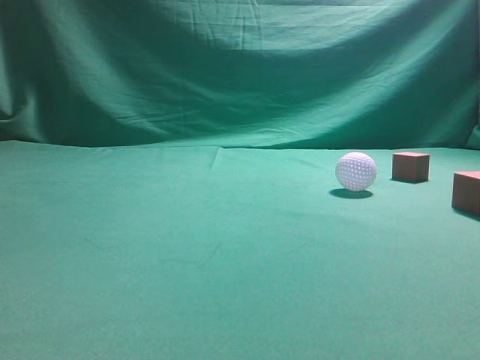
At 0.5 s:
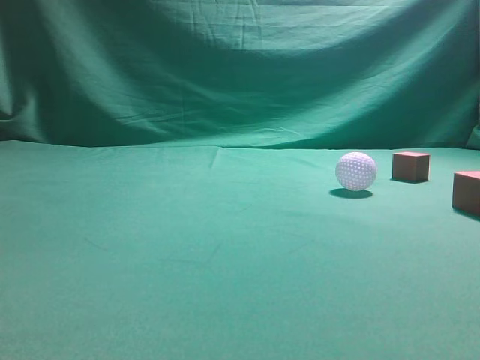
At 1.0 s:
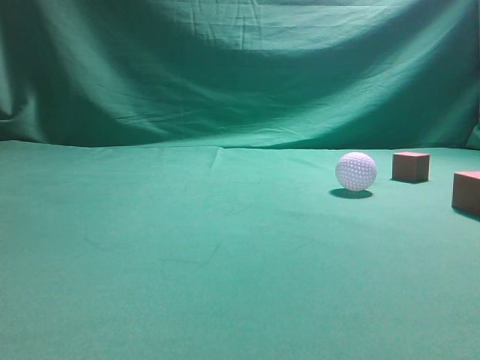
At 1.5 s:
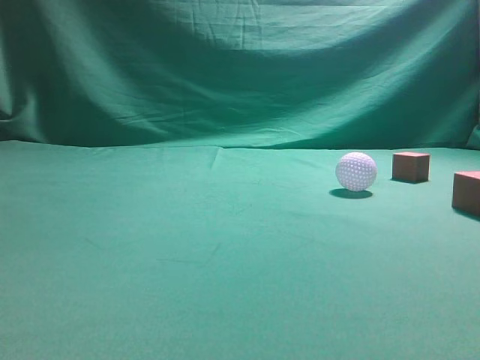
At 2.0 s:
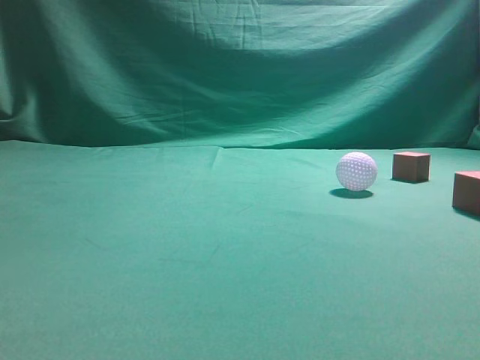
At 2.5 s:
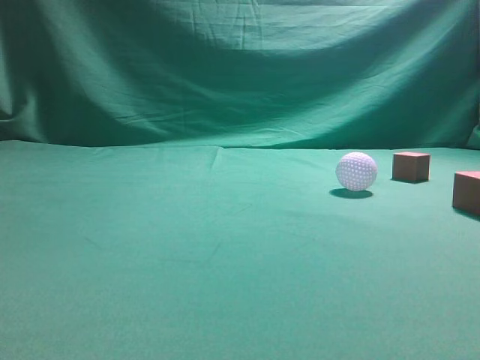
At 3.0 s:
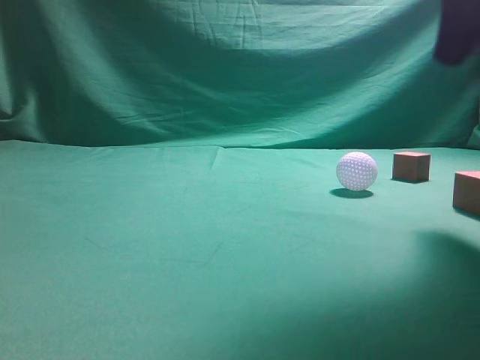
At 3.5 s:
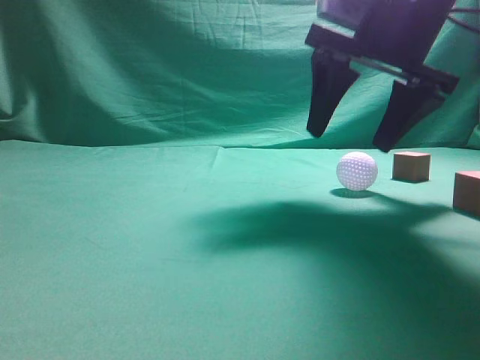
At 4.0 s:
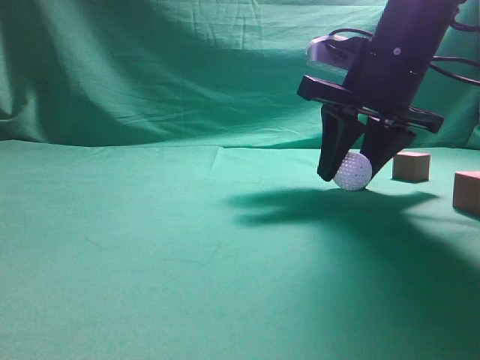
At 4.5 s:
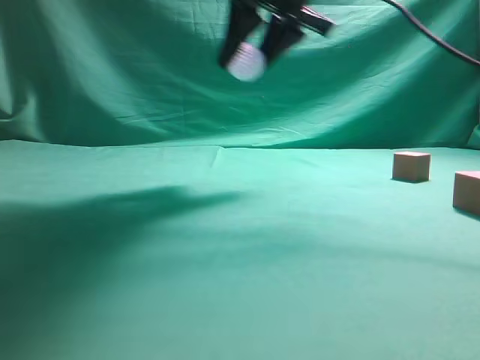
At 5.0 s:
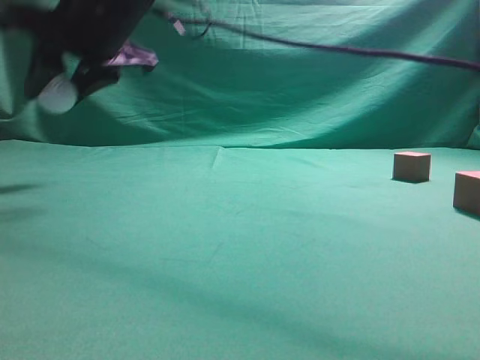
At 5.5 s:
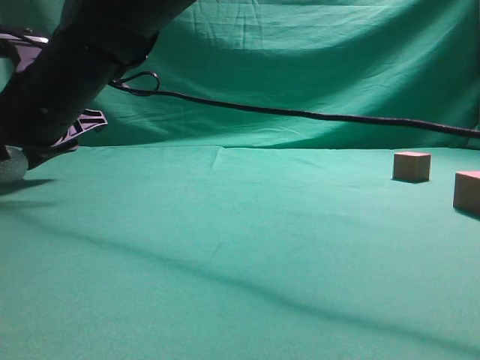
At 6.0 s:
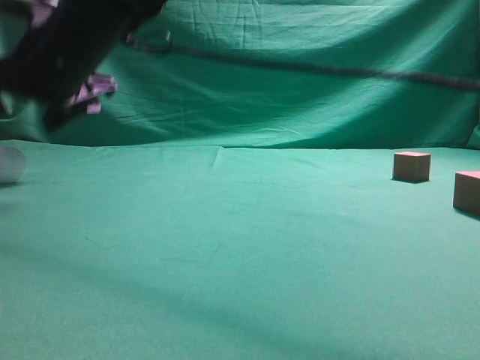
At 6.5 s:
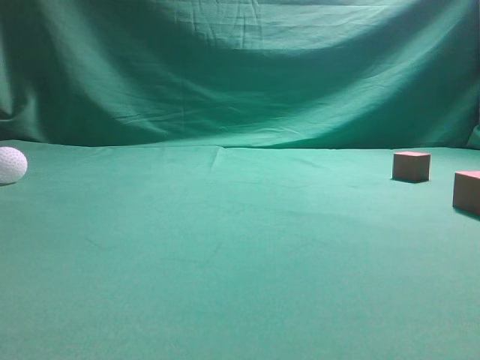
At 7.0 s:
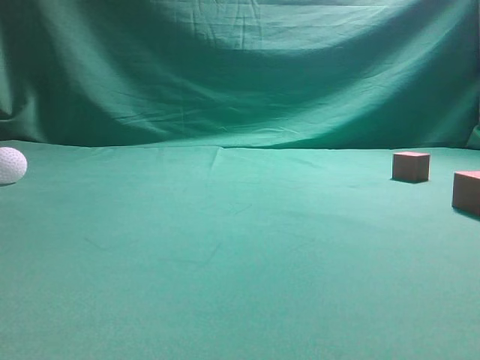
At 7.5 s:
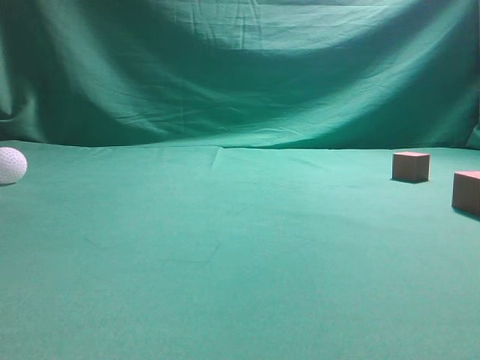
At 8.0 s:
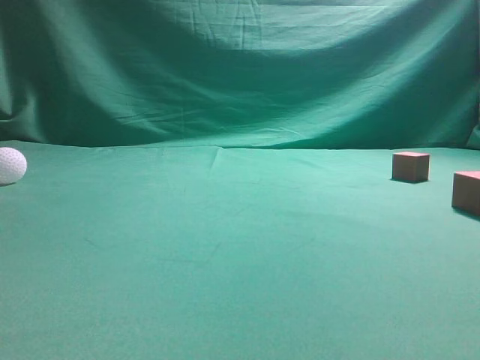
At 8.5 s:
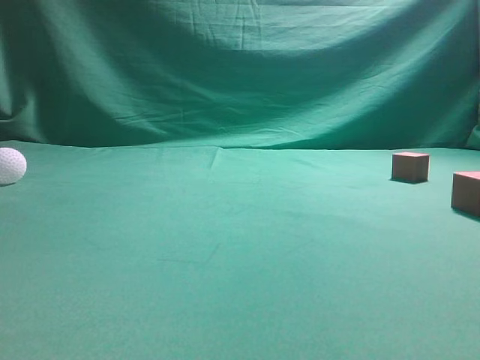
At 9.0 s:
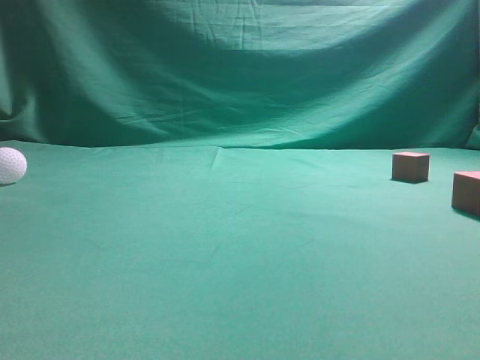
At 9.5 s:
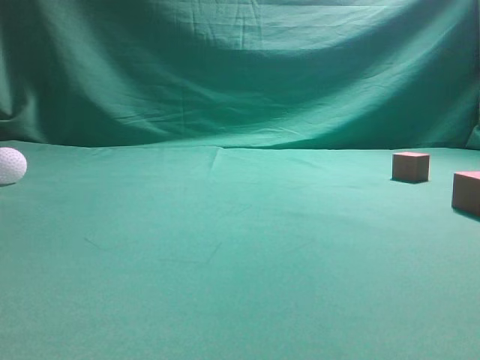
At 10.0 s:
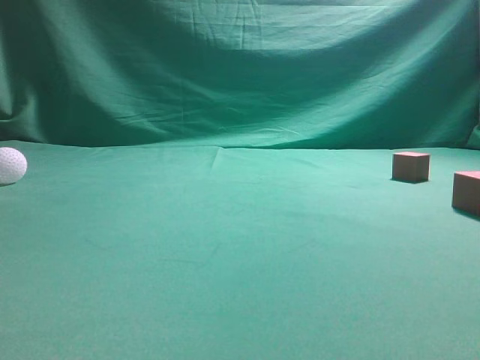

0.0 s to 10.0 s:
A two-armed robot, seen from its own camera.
Step, 0.0 to 3.5 s: Grasp the spherical object on the right side.
2.0 to 4.0 s: The right gripper moves forward and to the left, some 35 cm, and opens its fingers.
4.0 to 6.0 s: The right gripper travels to the left by roughly 30 cm, and opens up.
6.0 to 8.0 s: The right gripper goes roughly 50 cm to the right, backward and upward, and closes.

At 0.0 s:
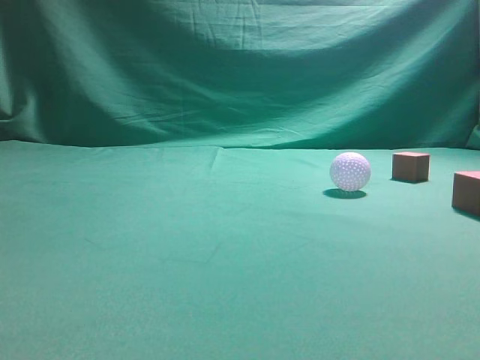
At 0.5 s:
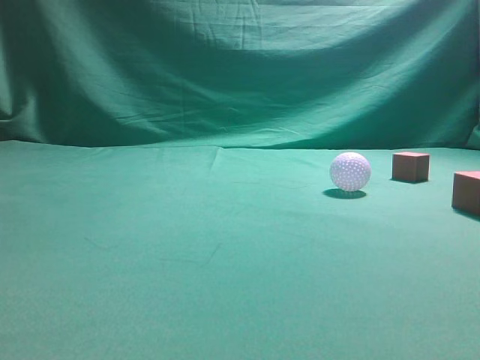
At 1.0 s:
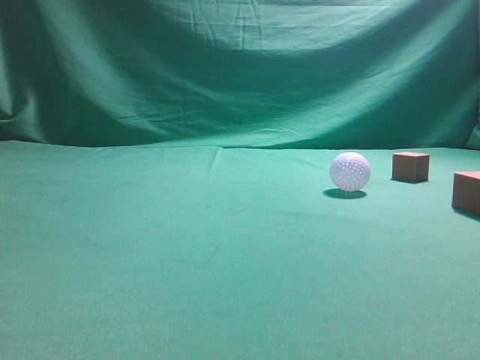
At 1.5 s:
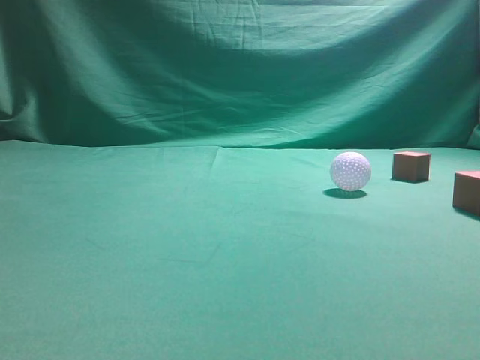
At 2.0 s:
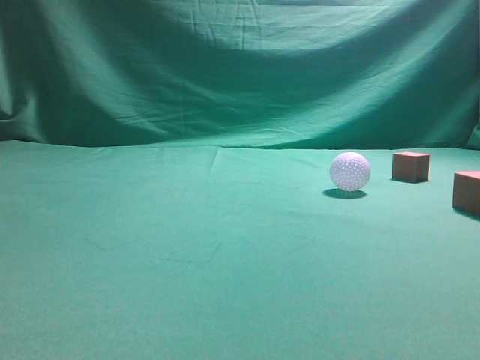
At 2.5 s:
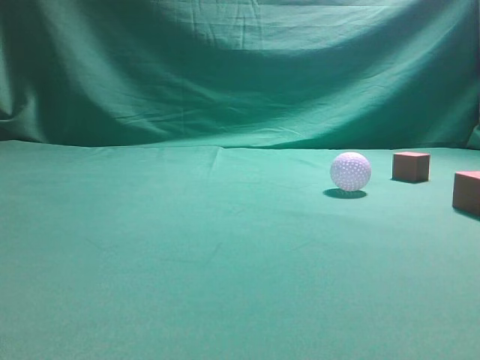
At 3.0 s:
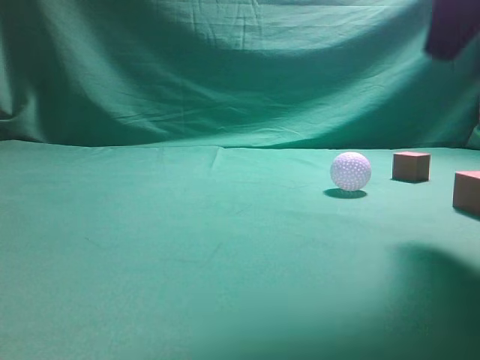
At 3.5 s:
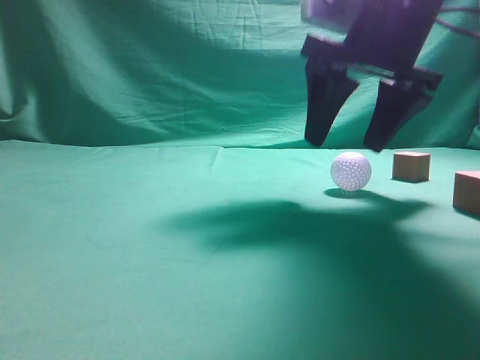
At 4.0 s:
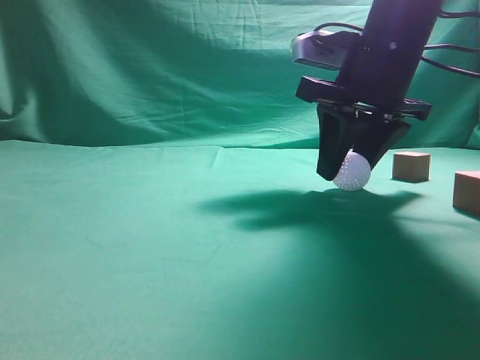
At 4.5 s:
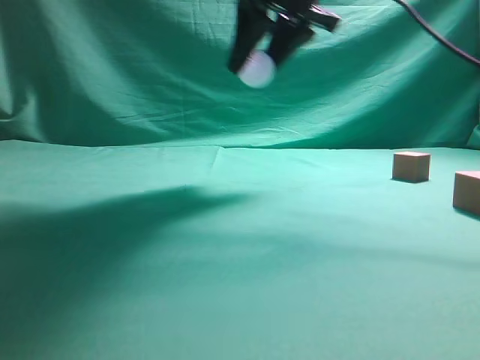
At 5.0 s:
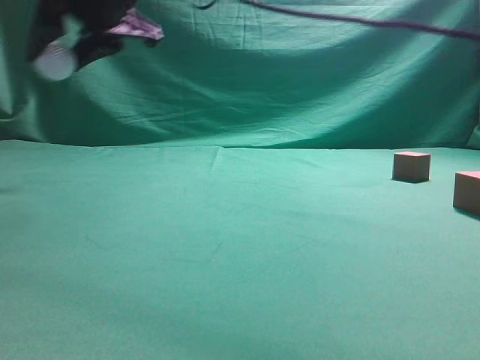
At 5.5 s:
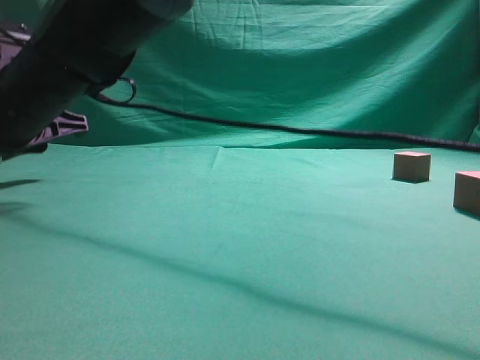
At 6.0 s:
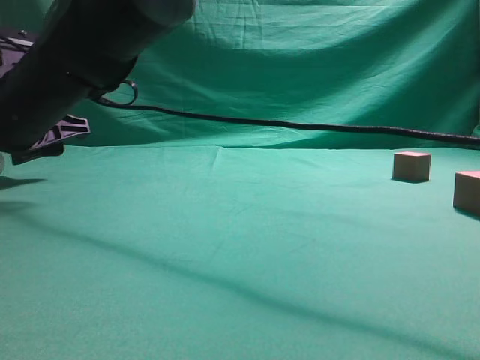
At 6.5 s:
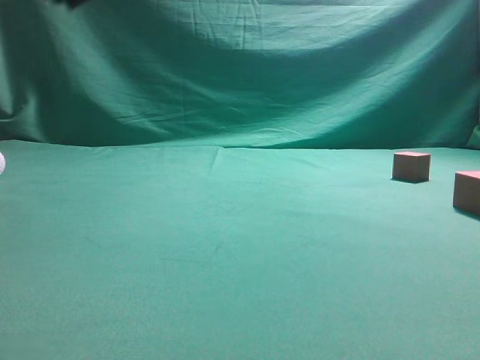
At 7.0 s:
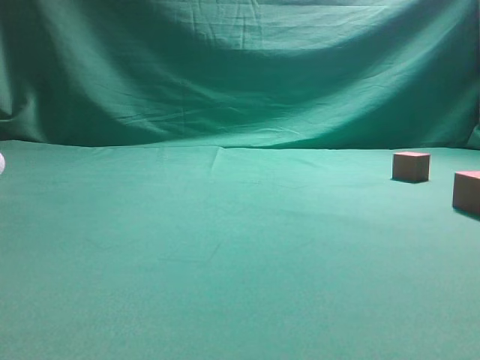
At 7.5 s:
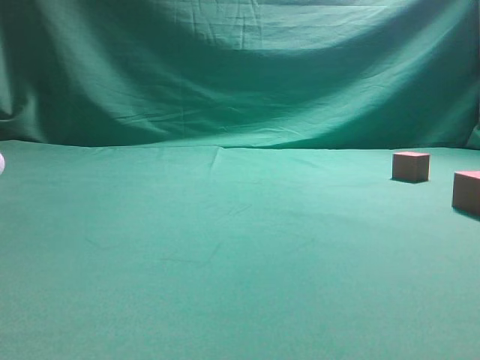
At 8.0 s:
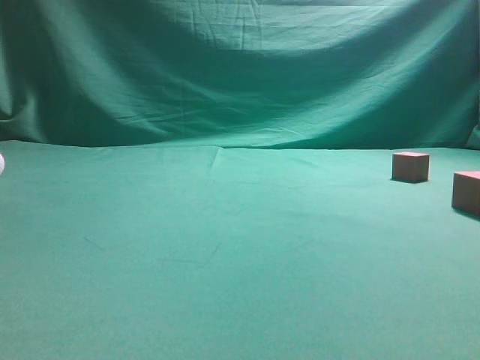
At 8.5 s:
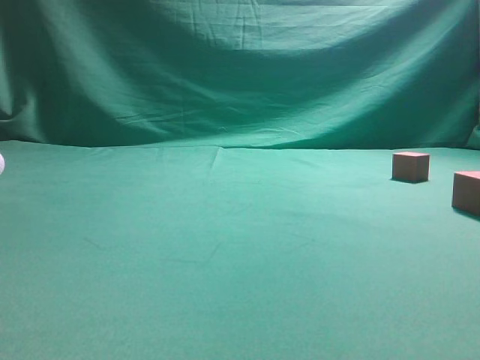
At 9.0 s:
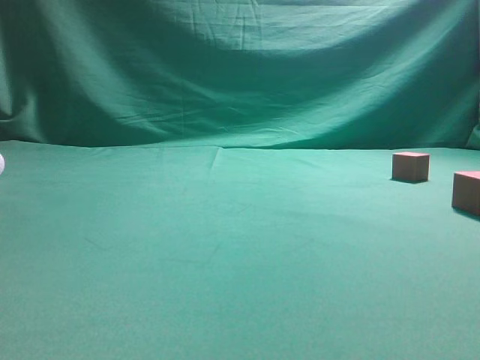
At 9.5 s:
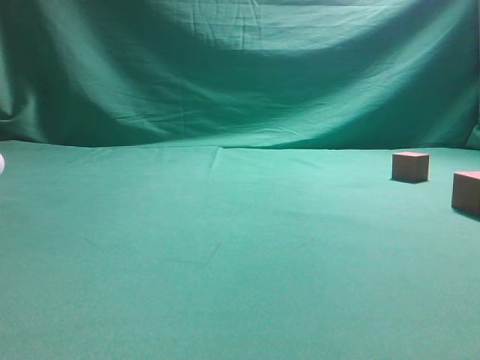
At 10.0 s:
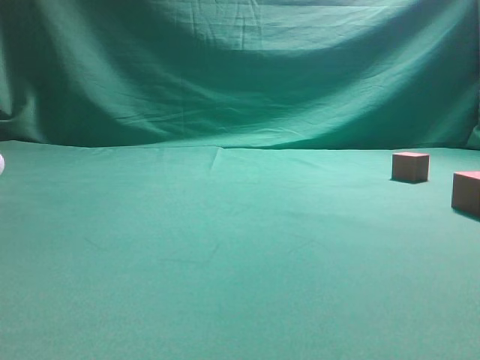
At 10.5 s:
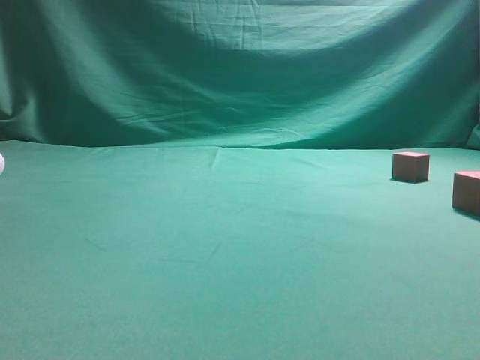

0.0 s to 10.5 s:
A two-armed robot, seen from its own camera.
Step, 0.0 to 4.0 s: Grasp the spherical object on the right side.
2.0 to 4.0 s: The right gripper moves forward and to the left, about 35 cm, and opens.
4.0 to 6.5 s: The right gripper heads to the left and upward, covering some 25 cm, and closes its fingers.
